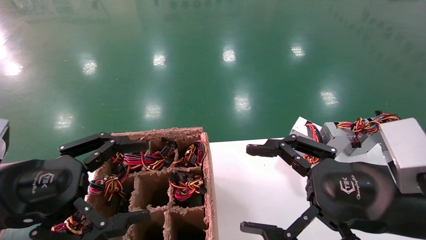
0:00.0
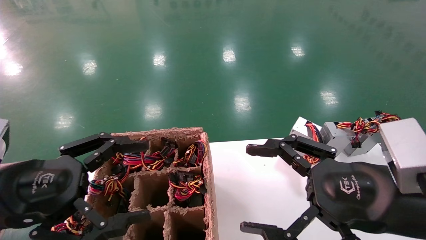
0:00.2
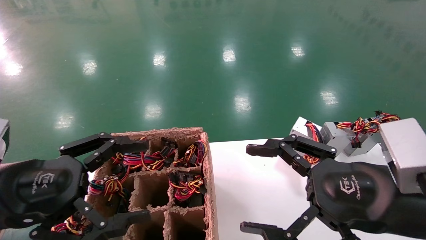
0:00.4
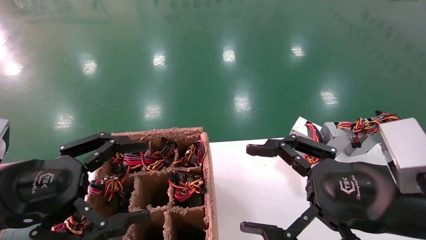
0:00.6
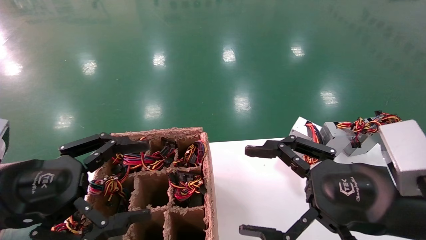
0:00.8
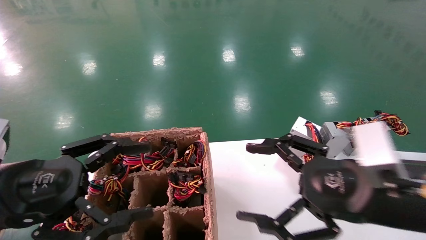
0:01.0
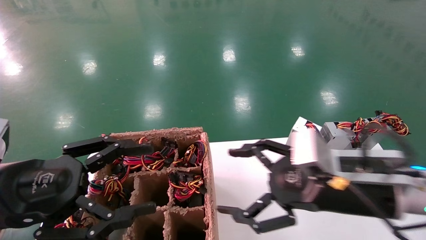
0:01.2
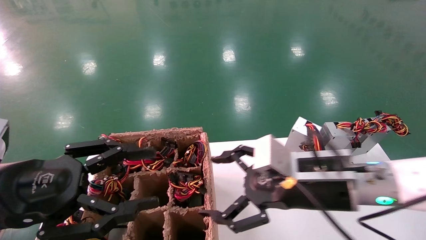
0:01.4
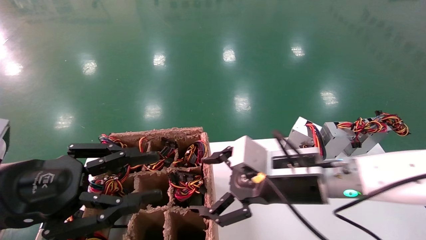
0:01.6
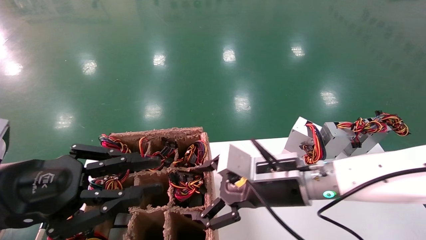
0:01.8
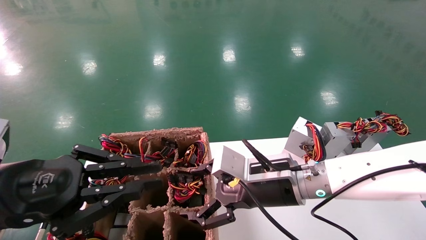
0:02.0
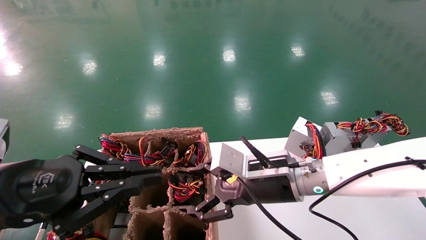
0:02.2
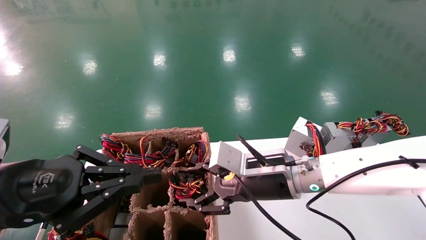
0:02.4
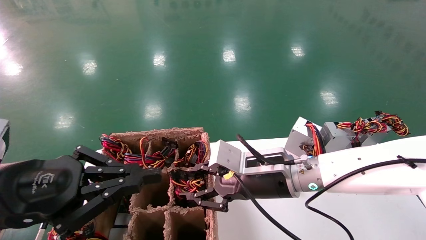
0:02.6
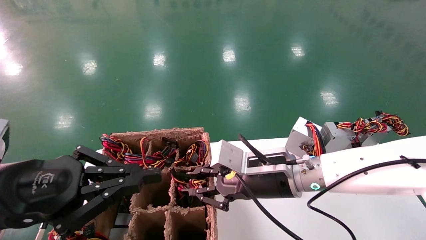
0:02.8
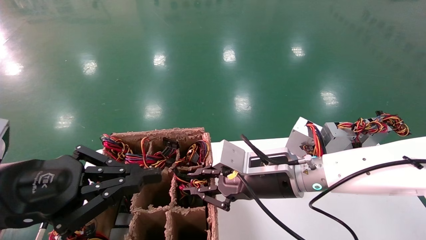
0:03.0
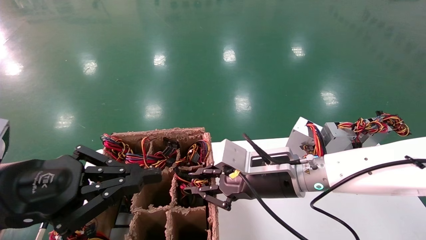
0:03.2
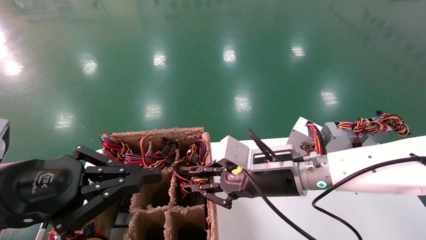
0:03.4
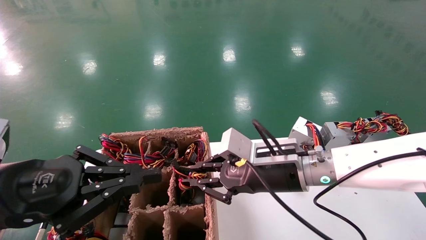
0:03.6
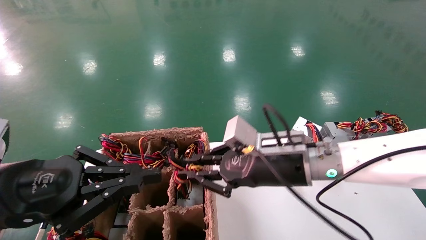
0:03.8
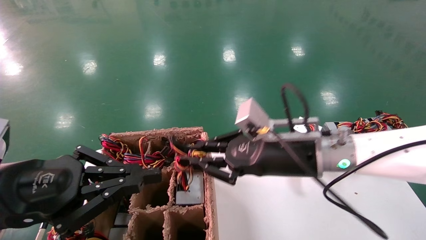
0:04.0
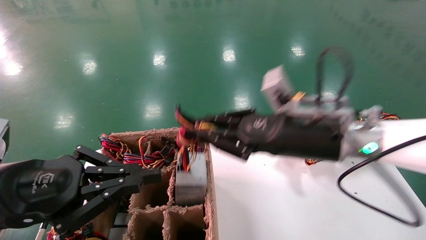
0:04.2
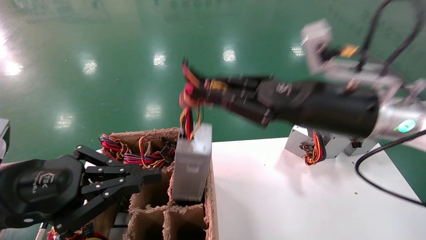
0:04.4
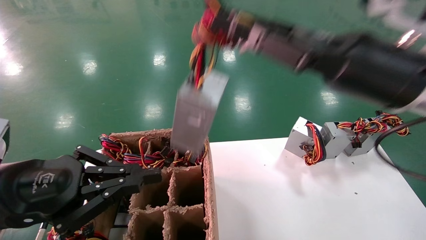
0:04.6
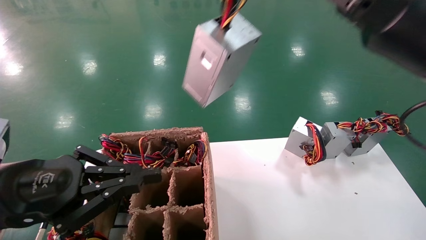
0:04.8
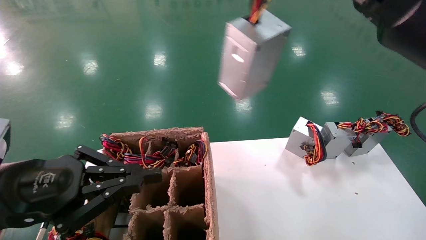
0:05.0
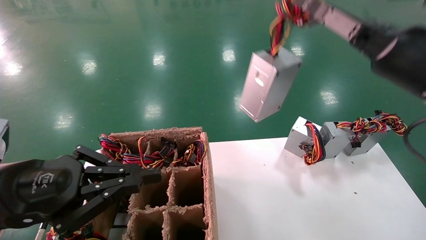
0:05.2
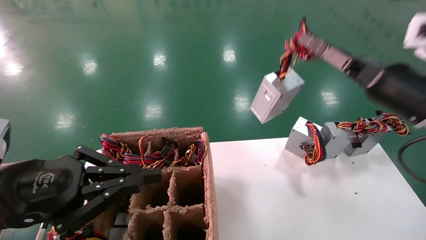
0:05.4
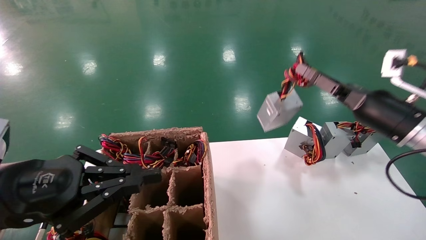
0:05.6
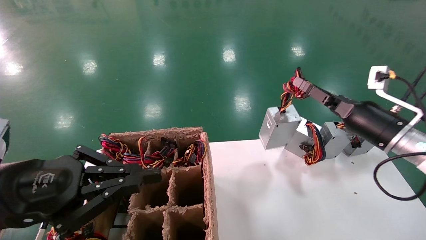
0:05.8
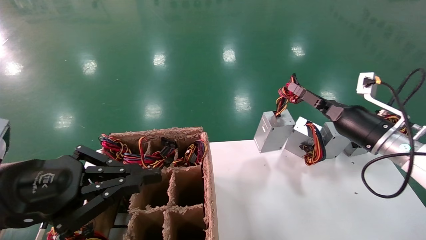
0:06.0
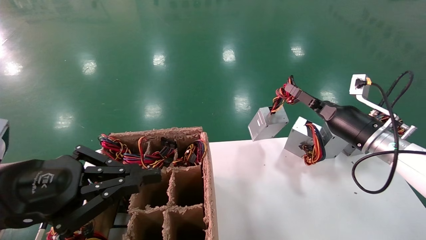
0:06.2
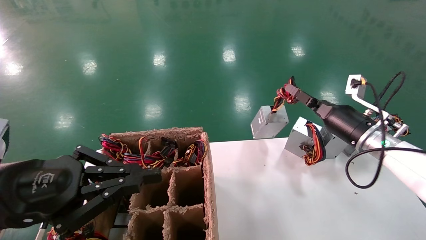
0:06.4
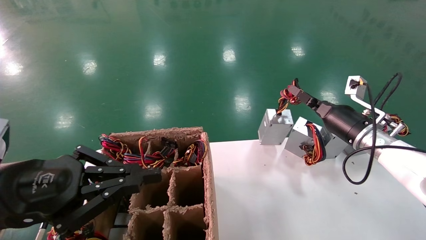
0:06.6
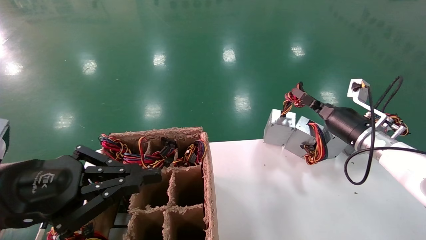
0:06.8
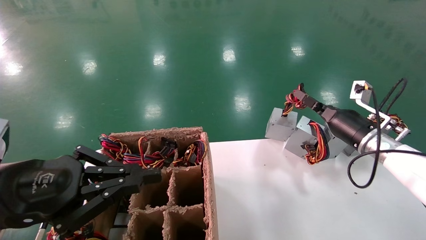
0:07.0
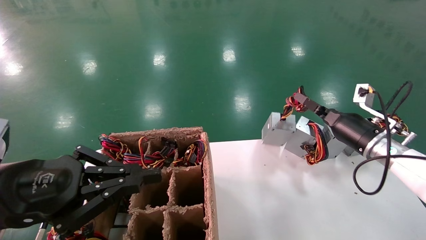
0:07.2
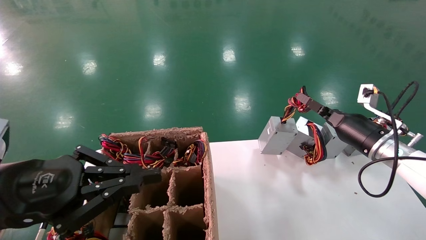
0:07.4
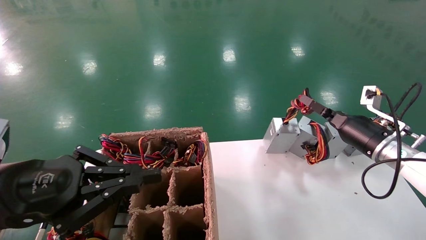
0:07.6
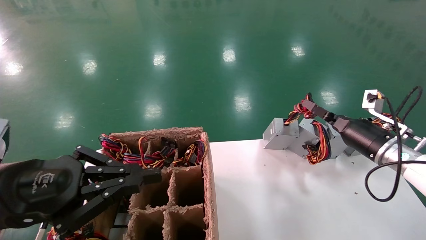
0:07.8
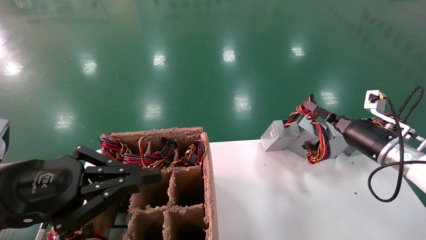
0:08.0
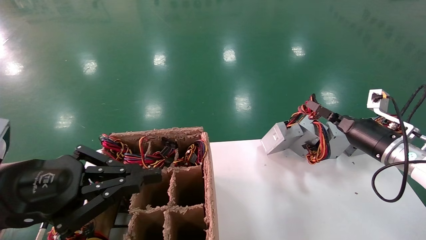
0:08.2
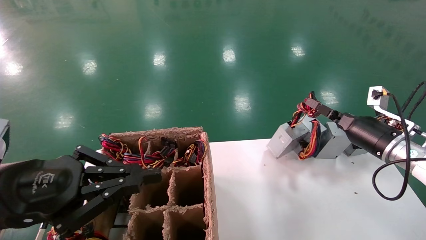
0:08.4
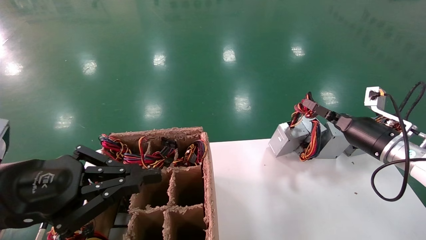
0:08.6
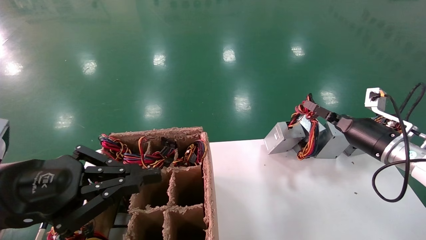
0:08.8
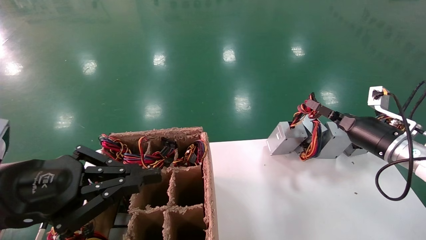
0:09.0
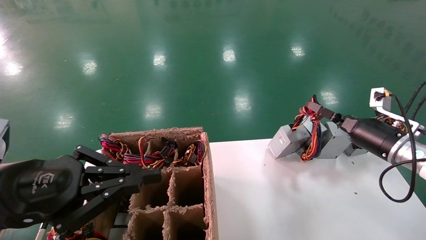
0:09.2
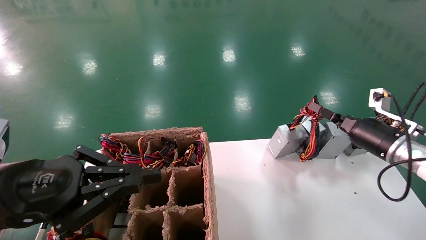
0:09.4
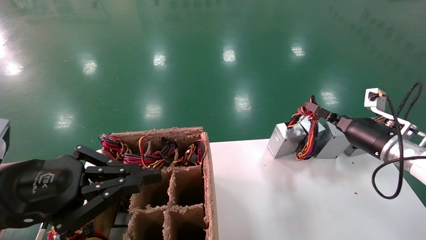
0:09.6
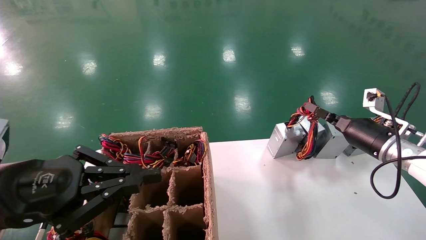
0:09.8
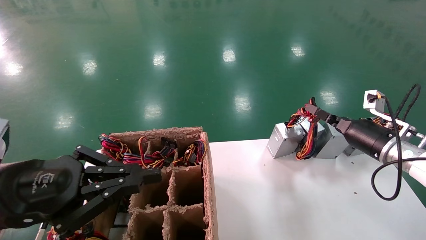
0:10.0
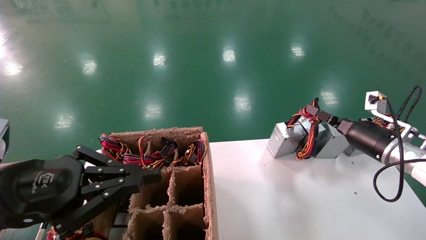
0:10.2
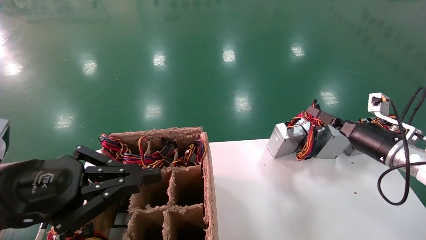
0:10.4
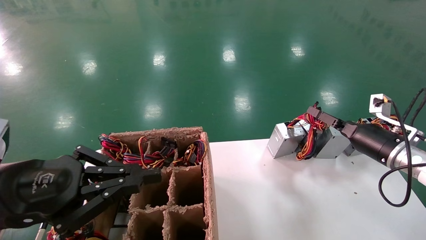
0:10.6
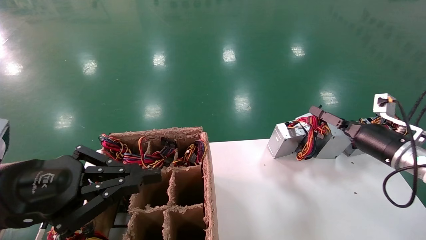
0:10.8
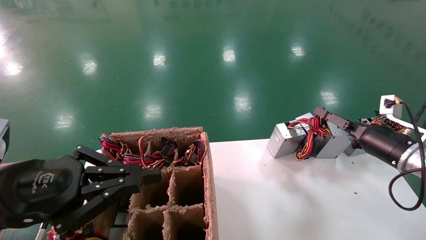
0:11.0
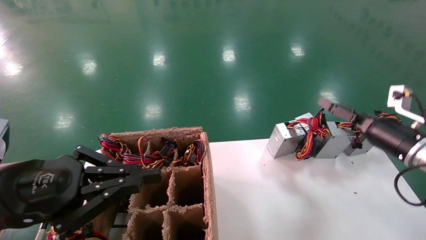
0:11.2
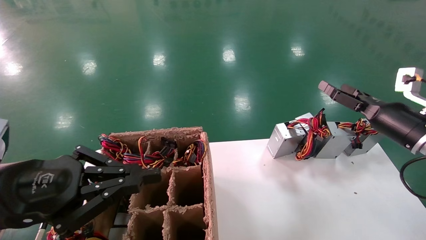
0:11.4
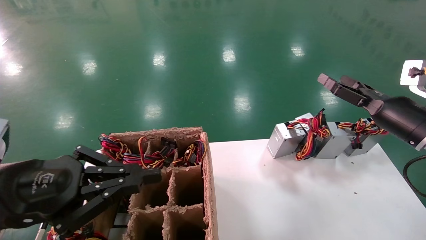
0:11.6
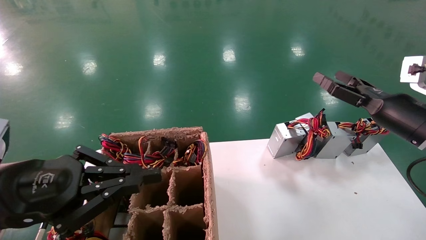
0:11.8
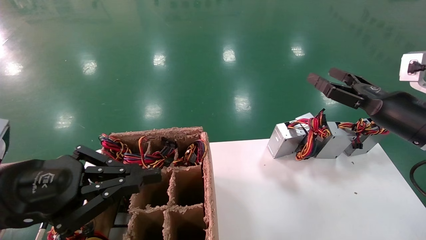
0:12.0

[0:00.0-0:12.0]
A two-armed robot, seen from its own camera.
Step, 0:01.2 to 0:03.0: Grab the main unit power supply from the containment box.
Step, 0:03.2 to 0:10.8: Place the main unit power supply in the designated area.
0:00.0 to 0:01.6: The left gripper closes its fingers, while the right gripper goes approximately 15 cm forward and to the left.
0:01.6 to 0:03.0: The left gripper closes up, while the right gripper closes.
0:03.0 to 0:04.4: The right gripper travels upward and to the right by some 15 cm.
0:04.4 to 0:06.0: The right gripper shifts about 20 cm to the right, forward and downward.
0:06.0 to 0:07.6: The right gripper changes place by some 5 cm.
0:07.6 to 0:09.0: The grippers make only small movements.
0:09.0 to 0:10.4: Both grippers stay put.
0:10.4 to 0:12.0: The right gripper moves upward and backward, about 10 cm, and opens its fingers.

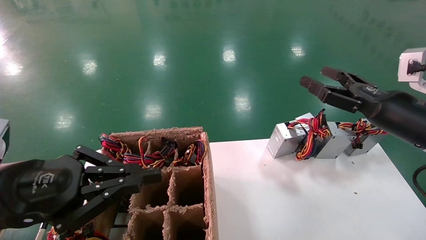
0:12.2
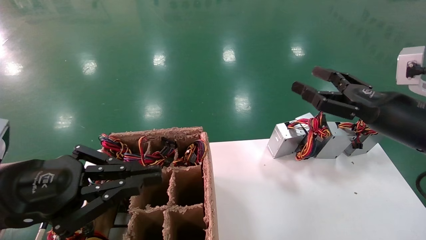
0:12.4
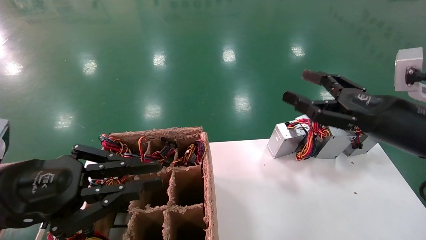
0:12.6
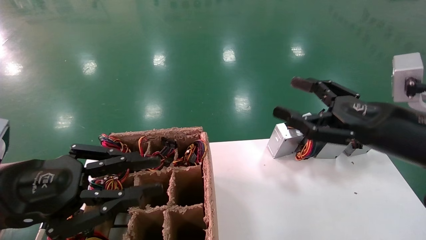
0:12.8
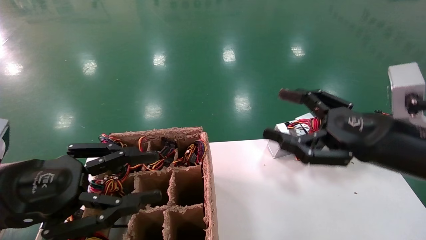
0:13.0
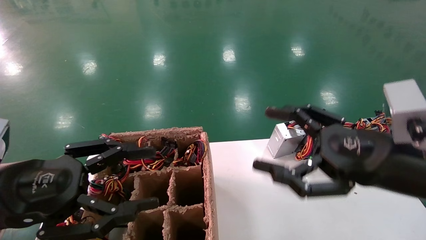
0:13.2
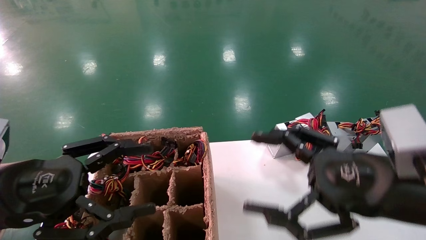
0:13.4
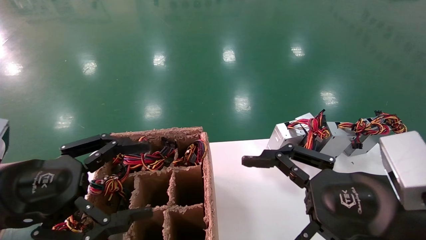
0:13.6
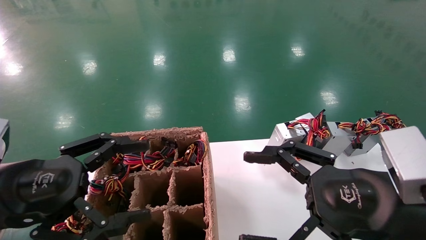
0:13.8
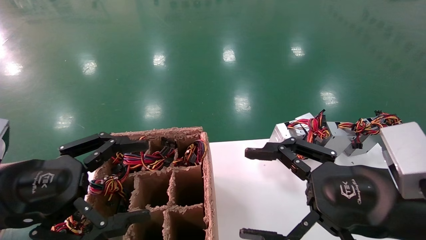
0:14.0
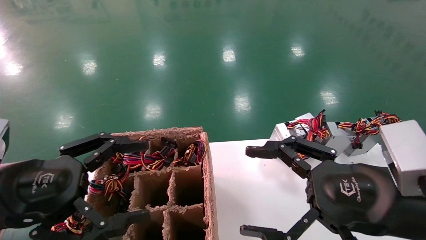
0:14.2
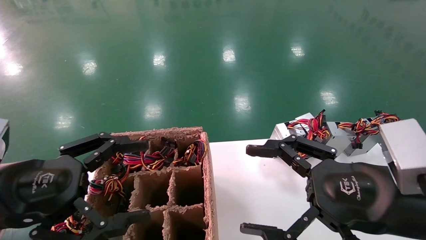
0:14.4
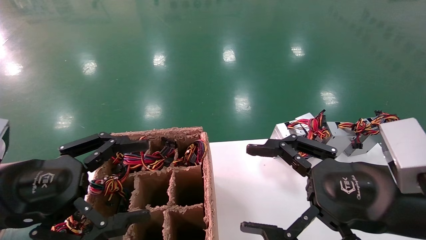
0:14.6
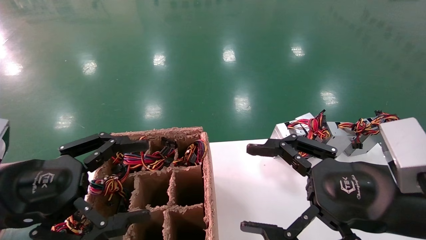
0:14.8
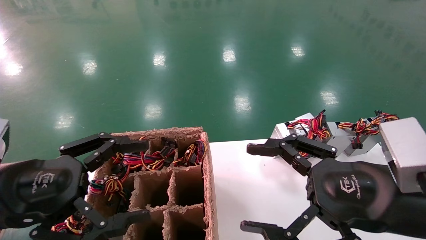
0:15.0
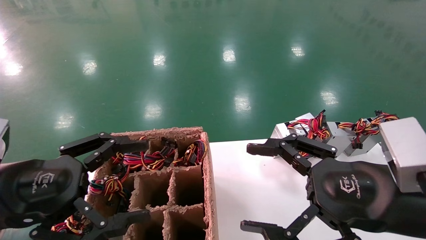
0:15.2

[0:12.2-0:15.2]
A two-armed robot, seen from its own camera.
0:12.2 to 0:13.8: The right gripper moves backward and to the left, approximately 20 cm; the left gripper opens up.
0:13.8 to 0:15.2: Both grippers stay put.
